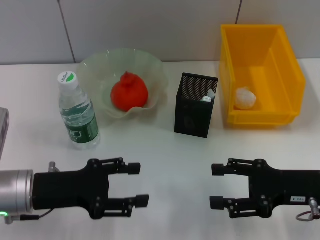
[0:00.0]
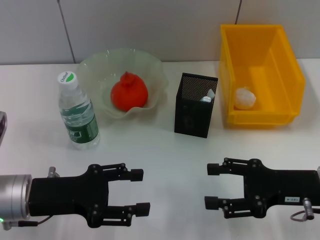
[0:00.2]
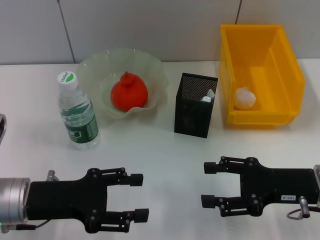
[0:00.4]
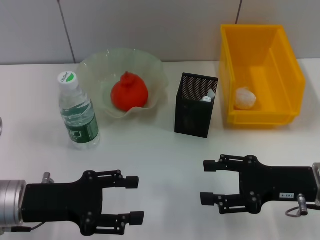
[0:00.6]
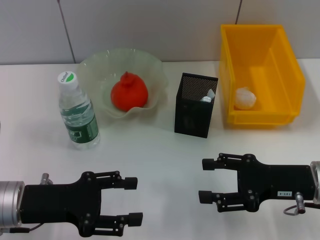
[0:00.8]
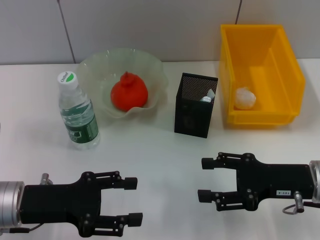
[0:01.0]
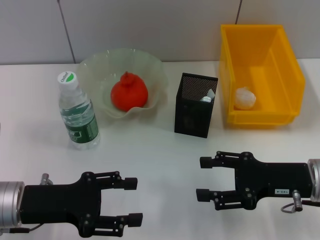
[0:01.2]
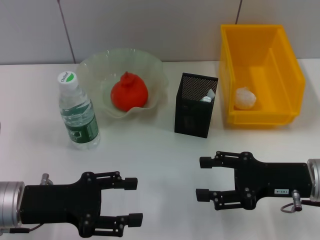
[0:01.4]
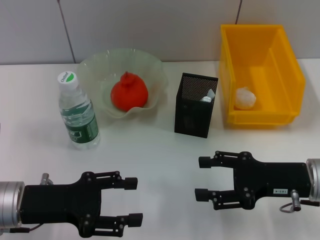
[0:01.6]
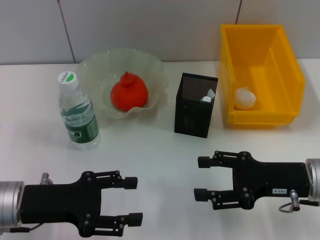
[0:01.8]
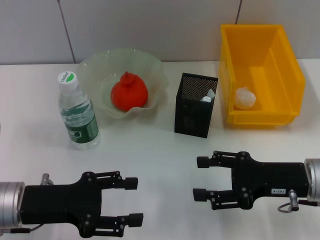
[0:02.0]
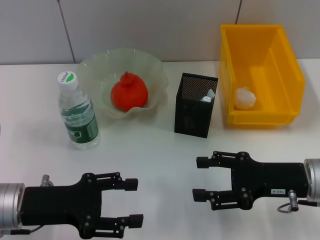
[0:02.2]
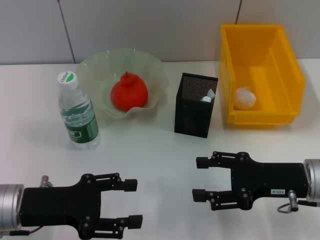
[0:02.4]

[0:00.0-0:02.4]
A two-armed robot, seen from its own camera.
0:00.0 to 0:01.2: The grippers stay close to where they were, moving slightly.
0:01.2 to 0:02.4: Neither gripper changes place.

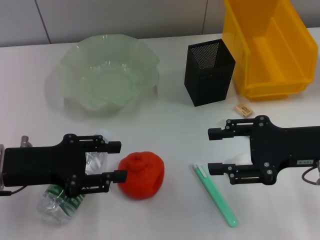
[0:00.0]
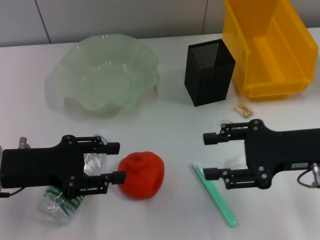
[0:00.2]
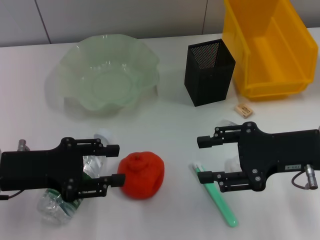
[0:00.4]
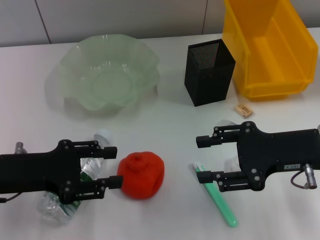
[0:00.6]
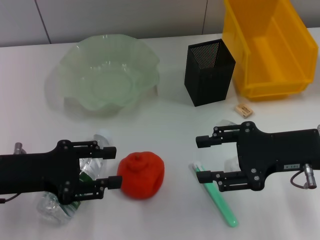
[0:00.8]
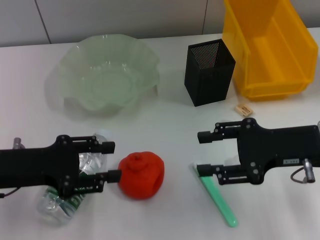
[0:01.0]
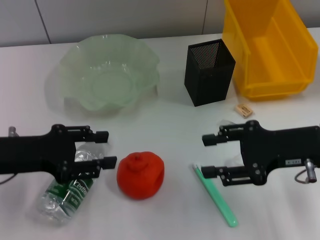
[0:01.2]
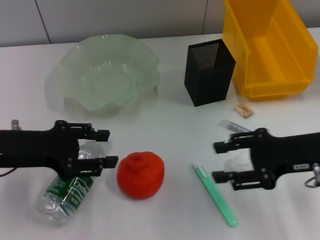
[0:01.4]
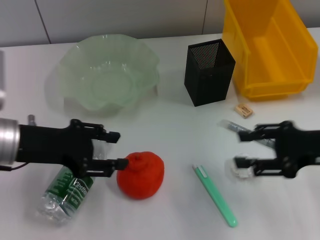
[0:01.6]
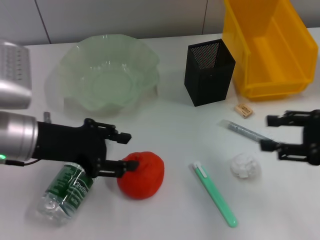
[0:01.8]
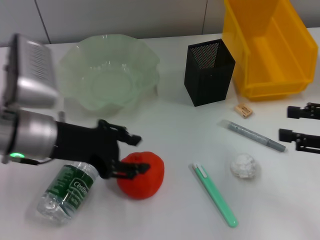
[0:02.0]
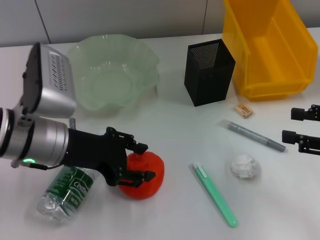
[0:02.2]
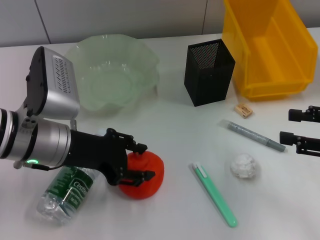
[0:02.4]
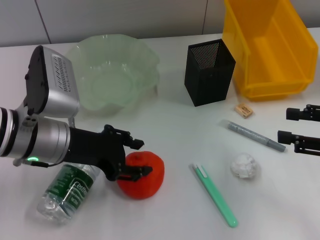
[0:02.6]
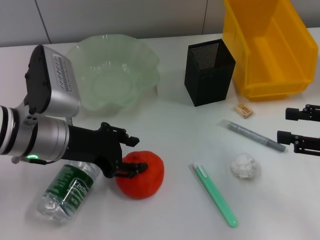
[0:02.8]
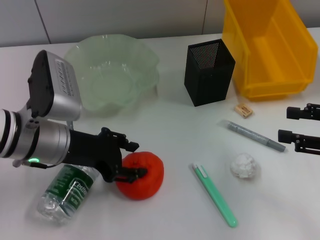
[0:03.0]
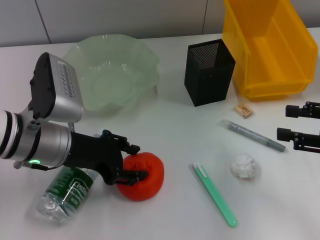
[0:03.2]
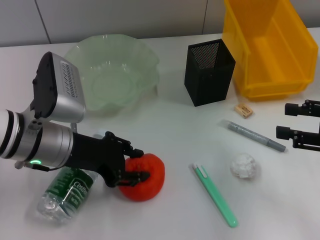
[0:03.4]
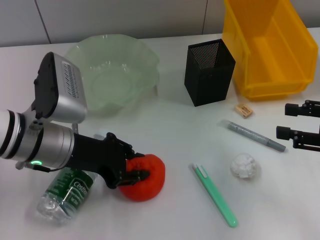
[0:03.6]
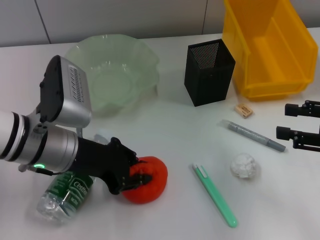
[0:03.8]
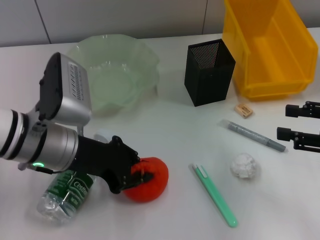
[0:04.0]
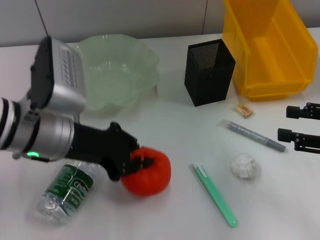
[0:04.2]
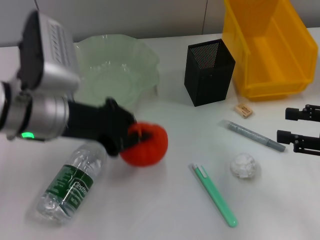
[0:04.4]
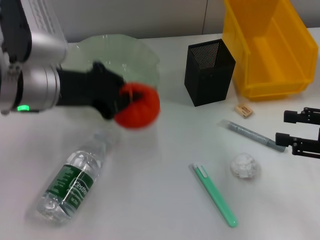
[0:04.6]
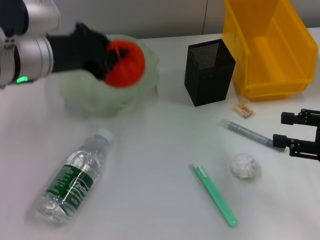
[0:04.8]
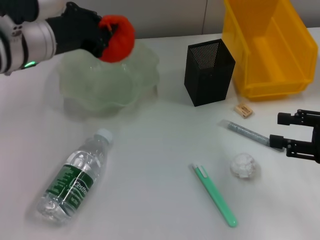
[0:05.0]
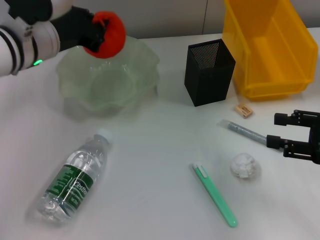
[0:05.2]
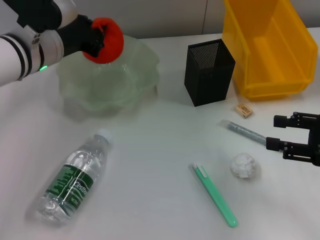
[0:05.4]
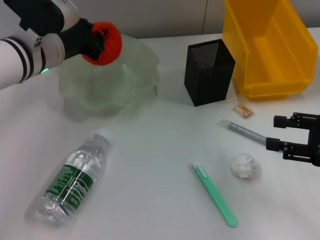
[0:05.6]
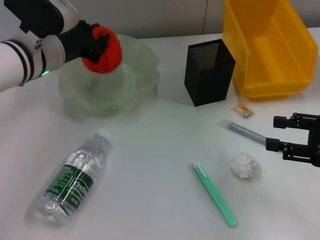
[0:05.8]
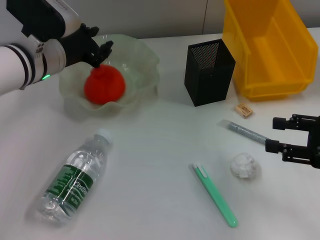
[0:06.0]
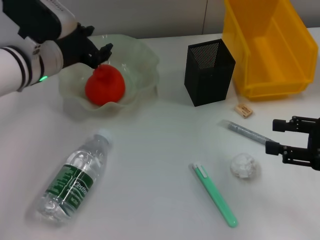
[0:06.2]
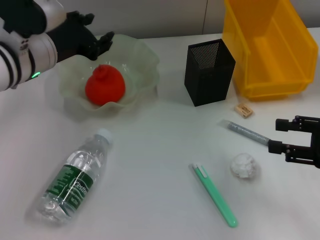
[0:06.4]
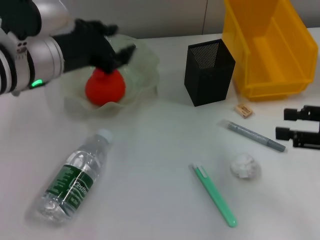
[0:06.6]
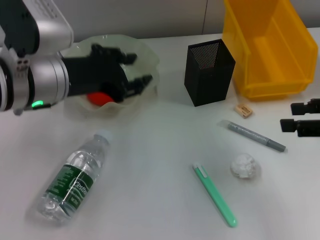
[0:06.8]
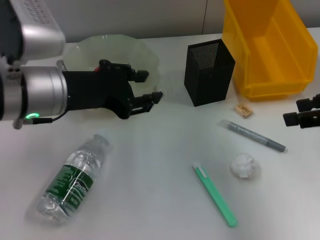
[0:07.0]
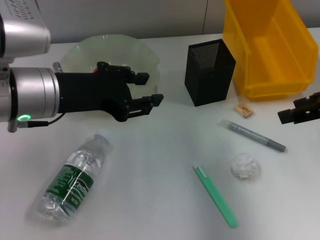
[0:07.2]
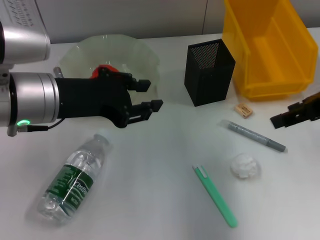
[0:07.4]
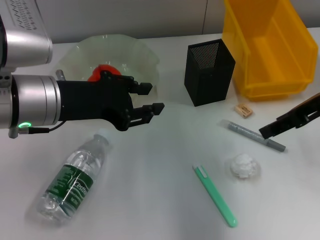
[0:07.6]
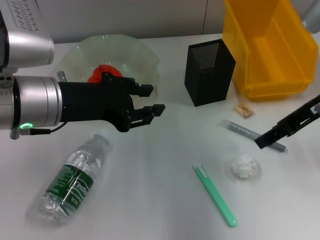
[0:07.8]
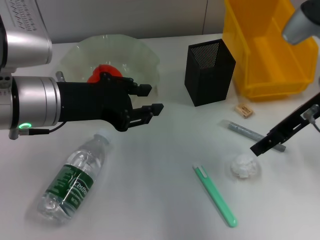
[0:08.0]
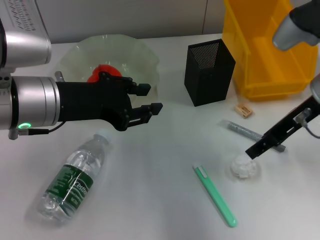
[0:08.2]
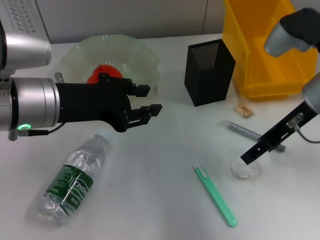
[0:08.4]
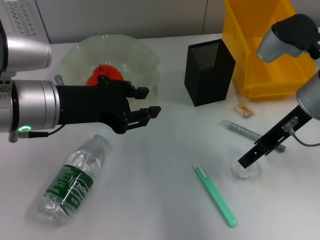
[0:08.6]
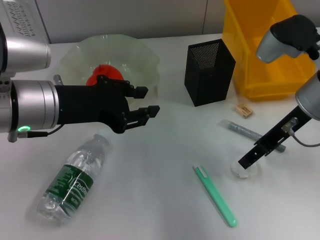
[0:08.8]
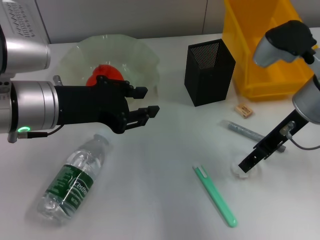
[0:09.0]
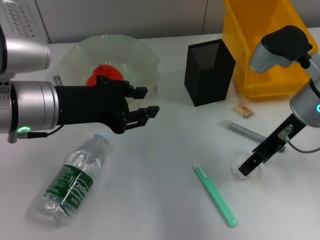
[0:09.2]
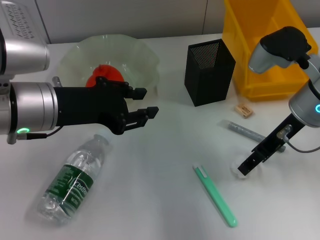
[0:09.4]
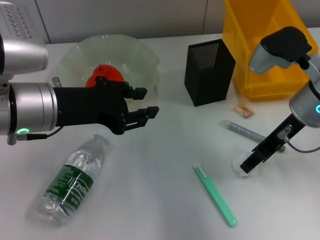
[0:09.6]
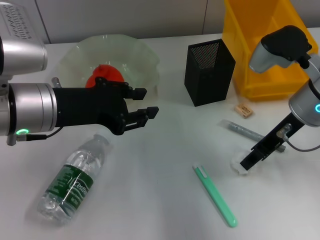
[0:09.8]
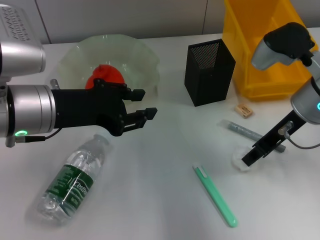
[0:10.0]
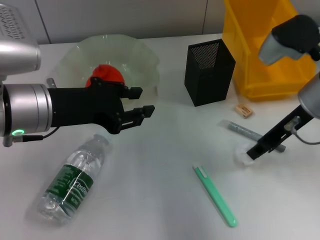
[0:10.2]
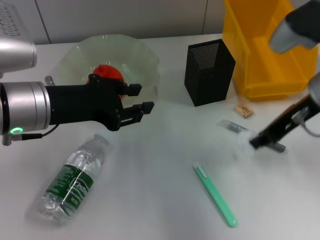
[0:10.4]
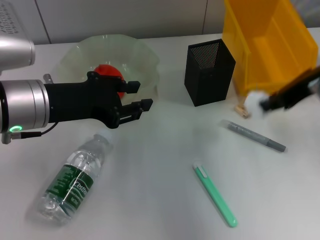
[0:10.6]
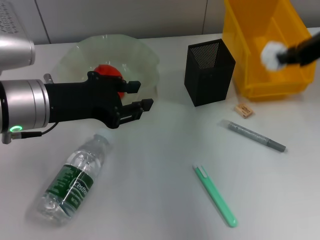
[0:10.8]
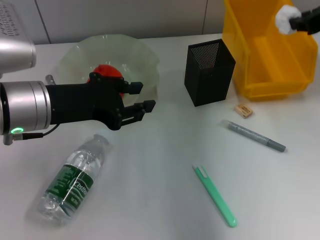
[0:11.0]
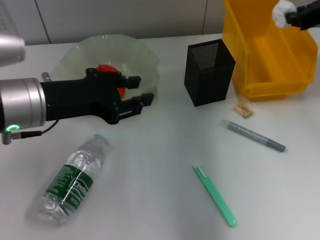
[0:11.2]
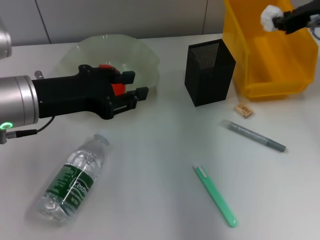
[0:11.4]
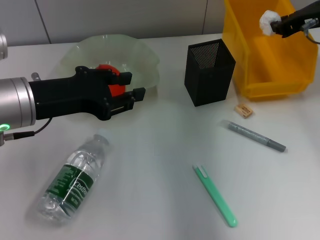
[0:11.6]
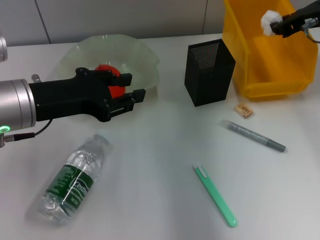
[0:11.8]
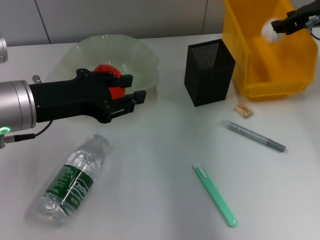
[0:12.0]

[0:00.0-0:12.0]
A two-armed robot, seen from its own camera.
Step, 0:00.0 to 0:03.6: Grab the orange with the left hand.
Step, 0:04.0 to 0:06.0: Place the orange into the fruit bowl with the left hand.
Step, 0:06.2 to 0:09.8: Grab the paper ball with the right hand.
0:00.0 to 0:01.6: The grippers stay close to where they were, moving slightly.
0:01.6 to 0:03.0: The grippers both shift to the right by some 5 cm.
0:03.0 to 0:04.4: The left gripper closes up.
0:04.4 to 0:06.0: The left gripper shifts approximately 10 cm forward.
0:06.0 to 0:07.6: The right gripper travels upward, forward and to the left by roughly 15 cm. The left gripper moves backward, roughly 10 cm.
0:07.6 to 0:09.0: The right gripper is displaced downward by some 5 cm.
0:09.0 to 0:10.4: The right gripper closes up.
0:10.4 to 0:12.0: The right gripper moves forward and to the right, some 10 cm.

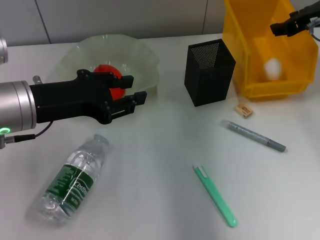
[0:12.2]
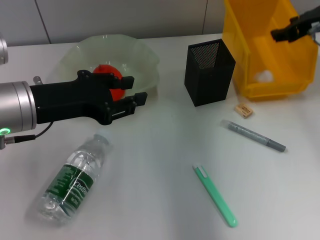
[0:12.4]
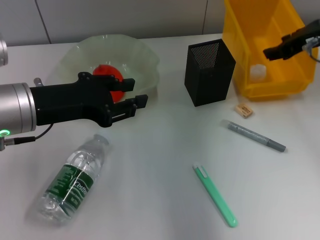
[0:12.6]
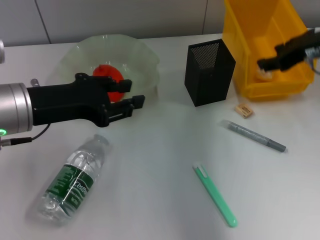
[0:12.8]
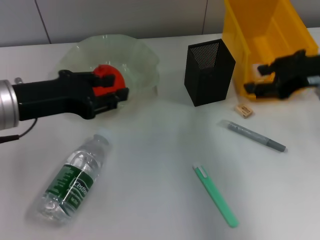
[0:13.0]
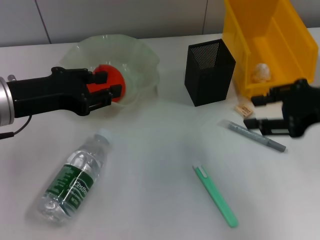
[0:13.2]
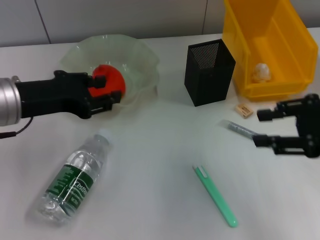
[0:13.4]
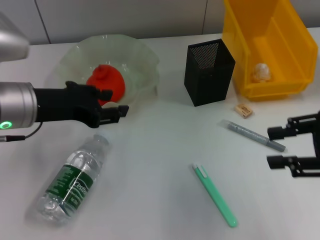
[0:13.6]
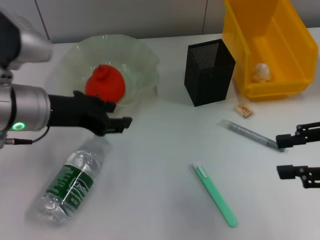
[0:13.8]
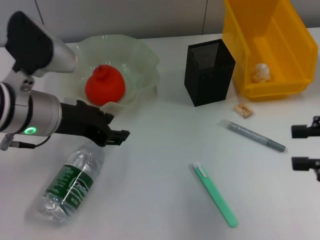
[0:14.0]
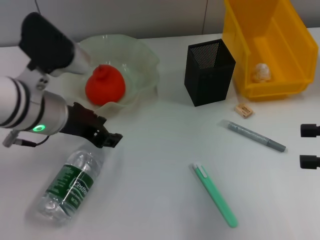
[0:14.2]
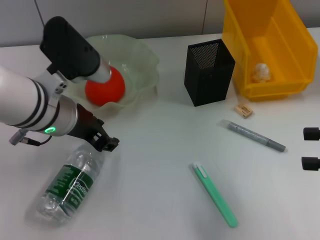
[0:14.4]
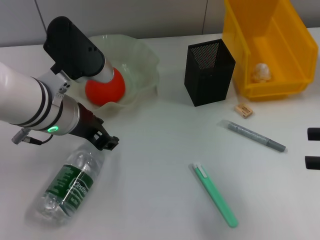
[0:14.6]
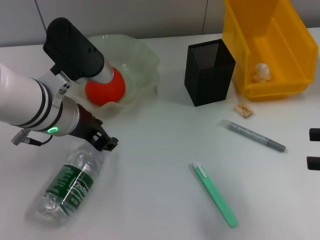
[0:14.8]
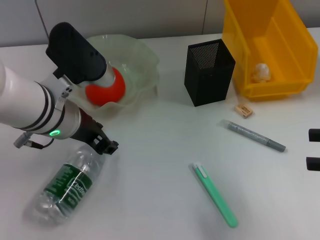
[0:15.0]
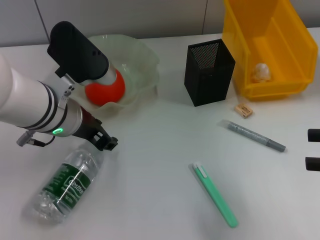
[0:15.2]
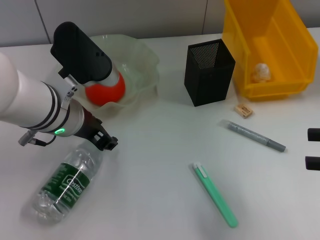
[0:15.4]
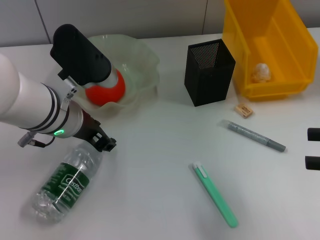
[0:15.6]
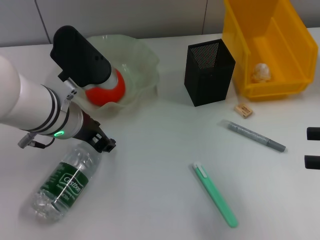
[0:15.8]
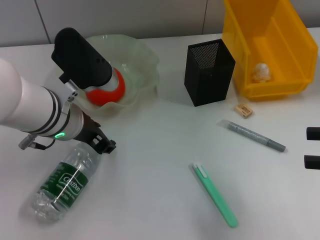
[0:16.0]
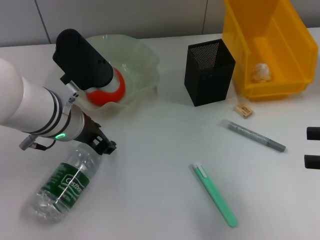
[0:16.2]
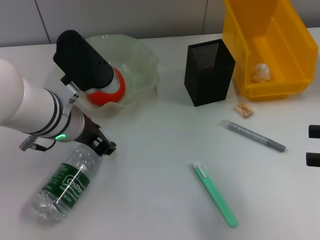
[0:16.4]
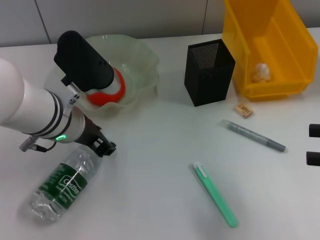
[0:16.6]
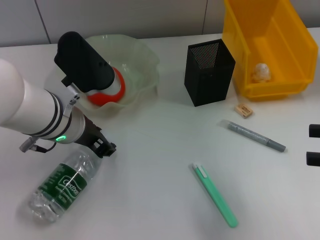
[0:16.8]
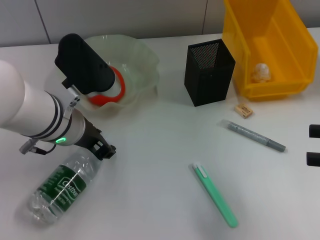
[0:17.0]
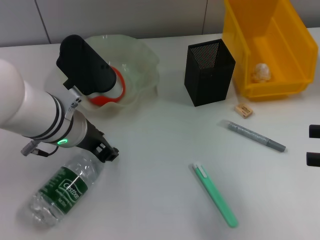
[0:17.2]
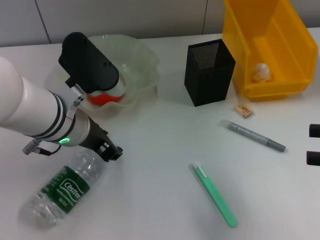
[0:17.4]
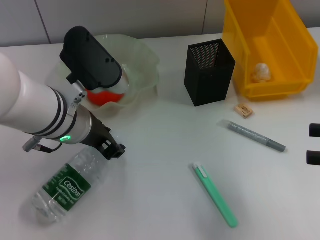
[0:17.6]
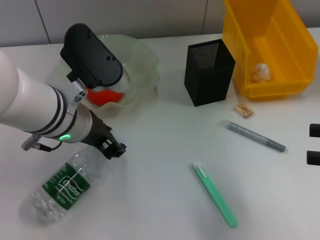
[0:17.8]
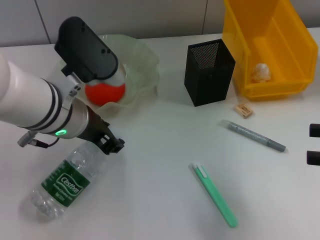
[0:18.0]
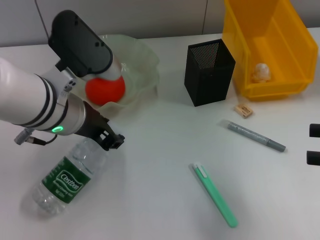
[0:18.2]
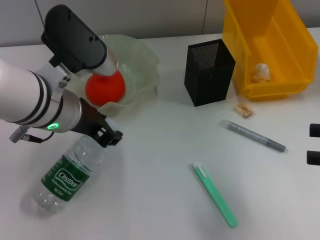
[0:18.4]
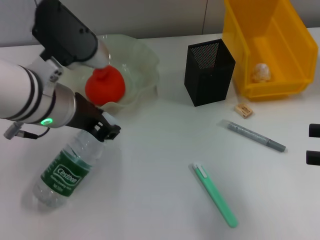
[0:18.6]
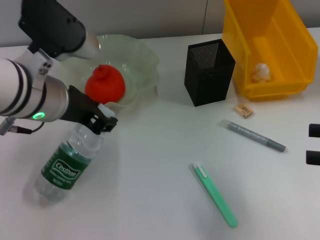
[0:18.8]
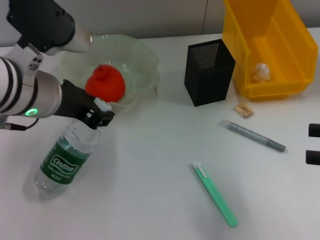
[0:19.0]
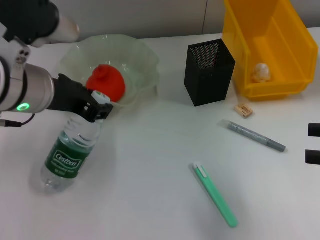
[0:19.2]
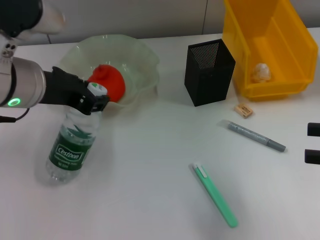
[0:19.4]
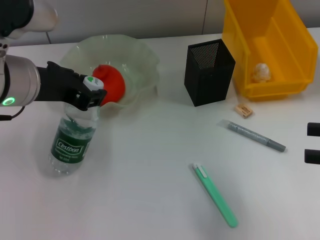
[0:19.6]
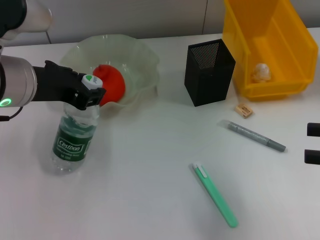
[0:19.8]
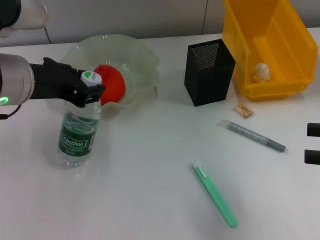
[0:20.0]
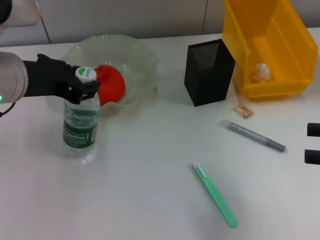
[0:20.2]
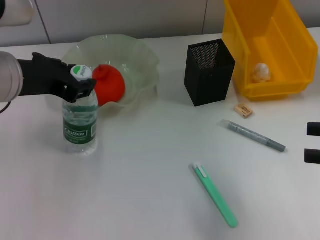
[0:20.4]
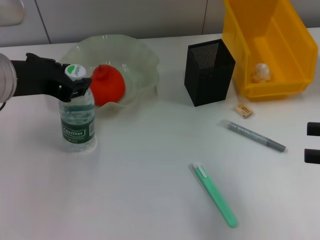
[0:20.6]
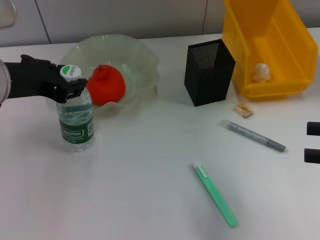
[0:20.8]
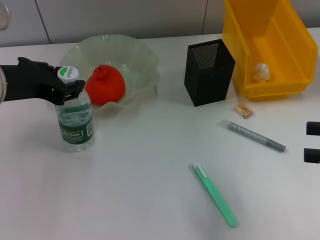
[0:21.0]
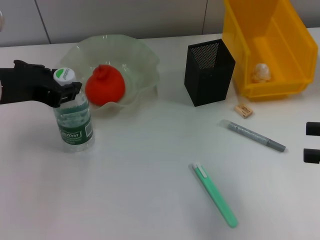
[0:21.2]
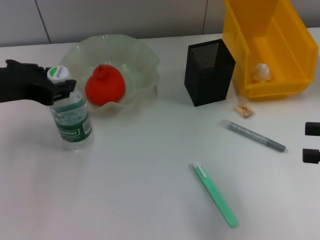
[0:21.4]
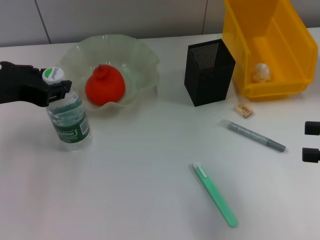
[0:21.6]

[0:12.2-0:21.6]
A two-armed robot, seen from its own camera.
Step, 0:12.4 to 0:17.2: Grab the water bottle with the left hand.
0:12.2 to 0:13.8: The right gripper moves backward, some 20 cm.
0:13.8 to 0:15.4: The left gripper is displaced to the right by about 5 cm.
0:15.4 to 0:17.0: Neither gripper changes place.
0:17.0 to 0:18.4: The grippers make only small movements.
0:18.4 to 0:20.0: The left gripper moves about 5 cm.
0:20.0 to 0:21.6: The left gripper goes some 5 cm to the left.
